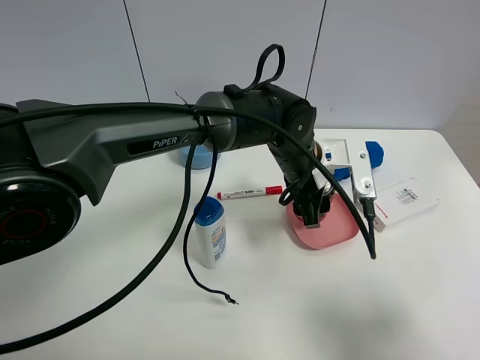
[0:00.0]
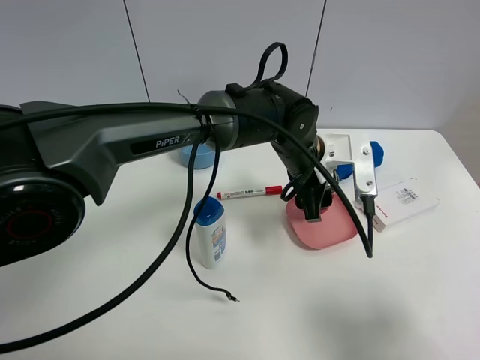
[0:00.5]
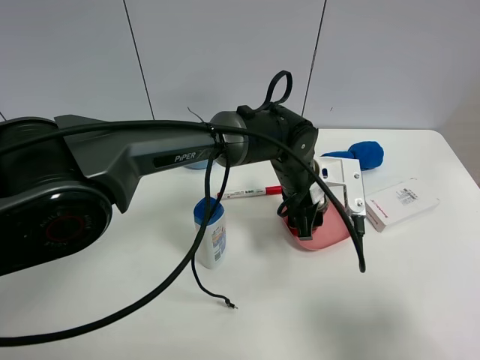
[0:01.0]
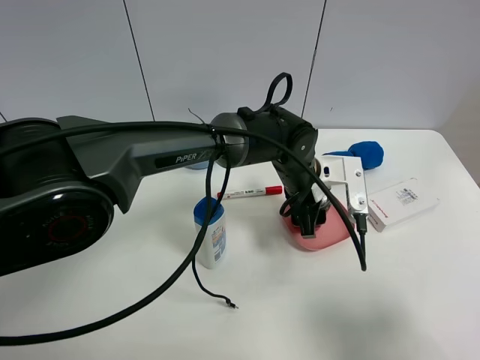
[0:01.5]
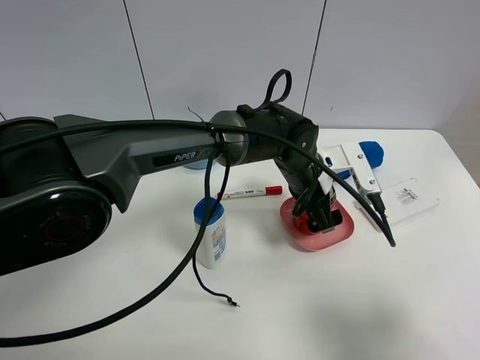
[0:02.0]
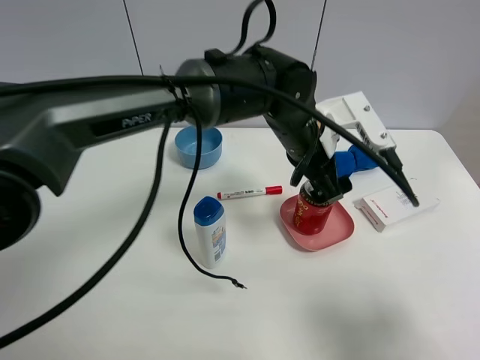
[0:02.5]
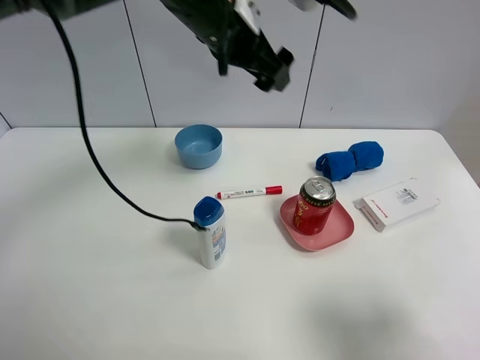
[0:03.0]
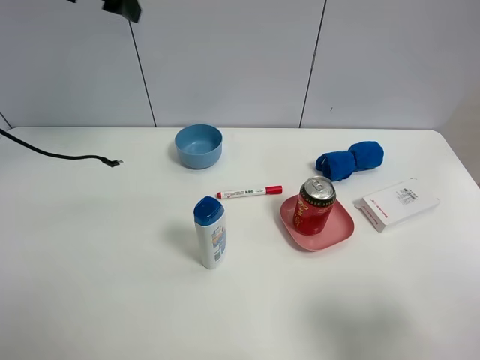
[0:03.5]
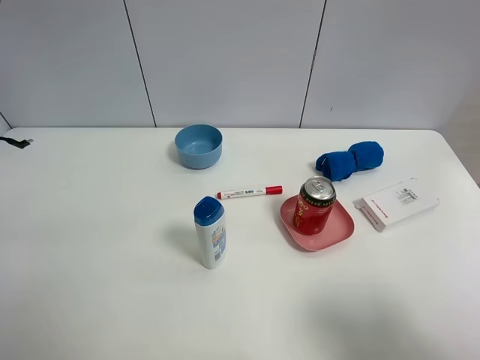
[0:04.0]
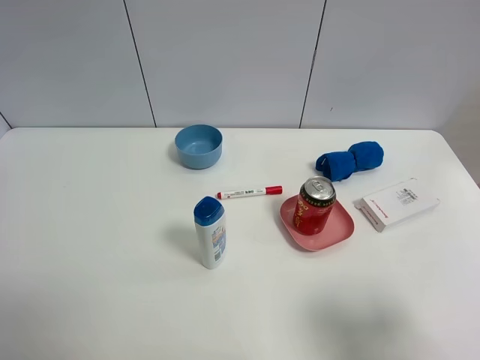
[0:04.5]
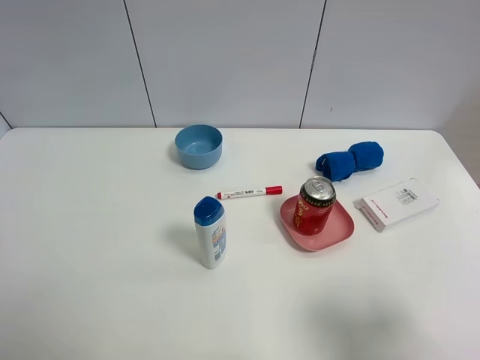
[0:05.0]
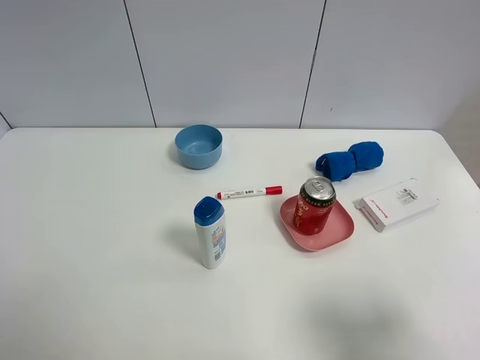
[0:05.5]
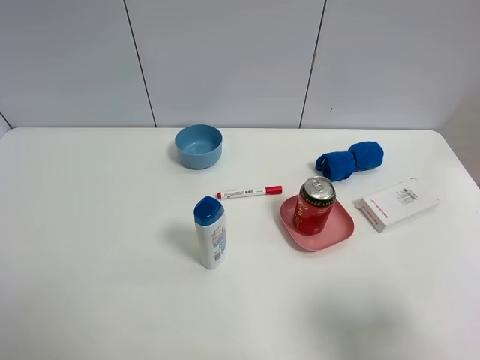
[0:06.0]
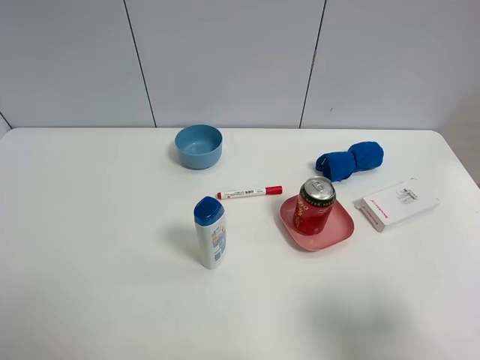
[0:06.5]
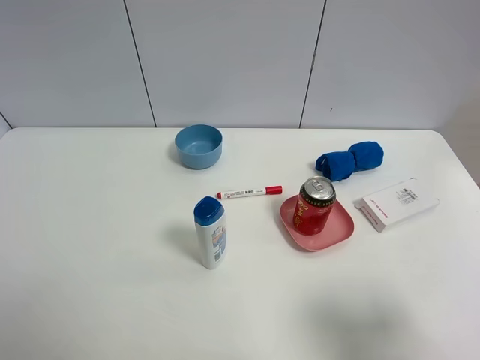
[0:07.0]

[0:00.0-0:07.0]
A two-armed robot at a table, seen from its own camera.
Task of the whole recording: the gripper move the object.
Step, 0:00.0 to 0:02.0: Place the Jia Duo Bao into the pink plate with the left gripper.
0:00.0 to 0:02.0: The left gripper opens up.
0:02.0 to 0:03.5: The left gripper is displaced to the left and upward by some 40 cm.
0:03.5 to 0:05.0: The left gripper goes about 30 cm backward.

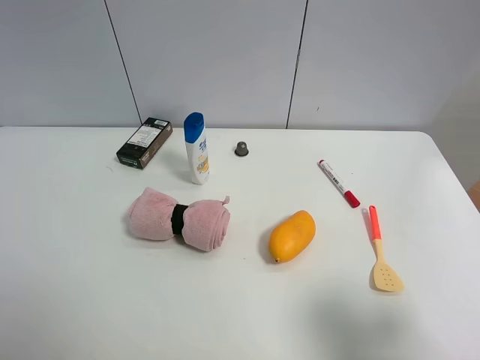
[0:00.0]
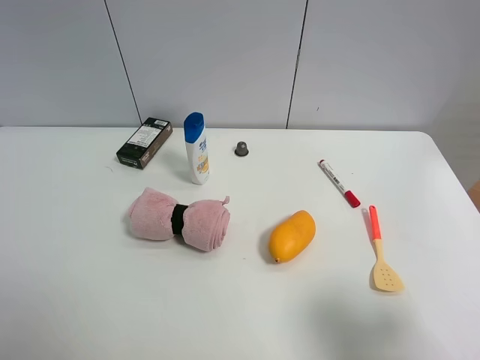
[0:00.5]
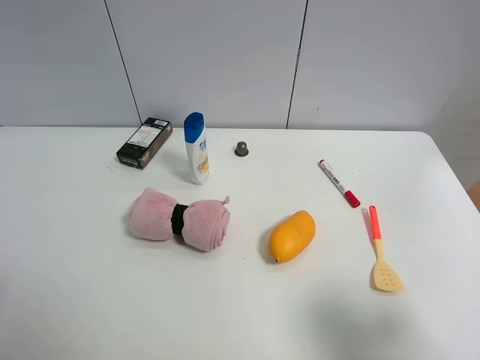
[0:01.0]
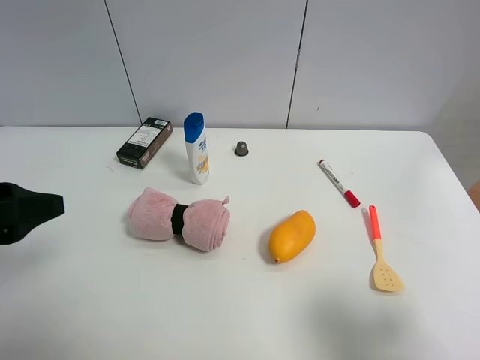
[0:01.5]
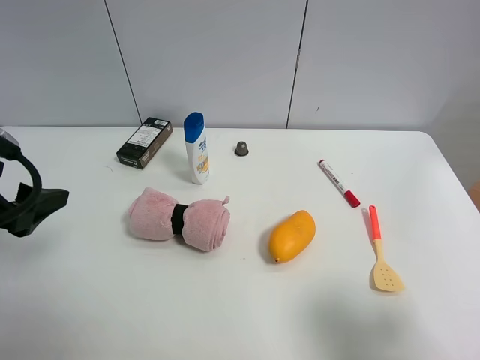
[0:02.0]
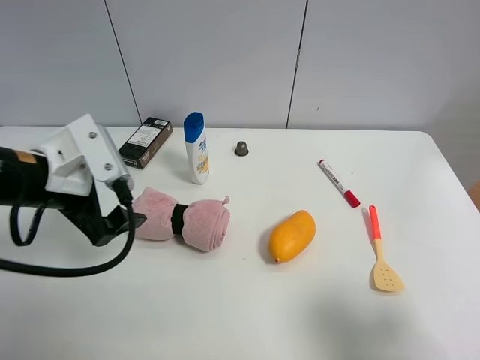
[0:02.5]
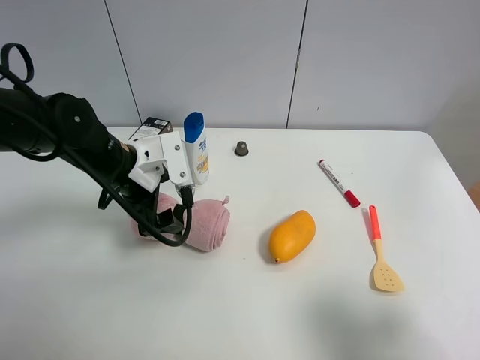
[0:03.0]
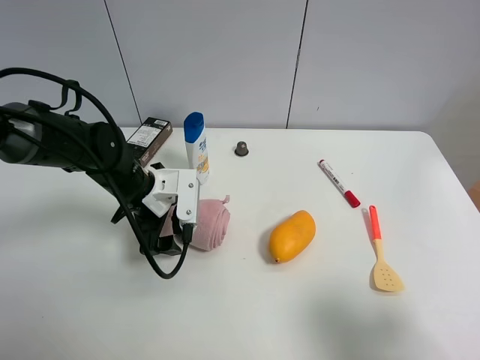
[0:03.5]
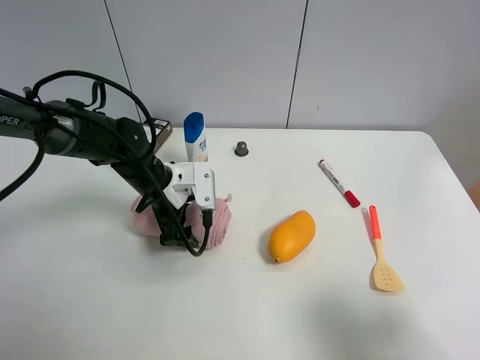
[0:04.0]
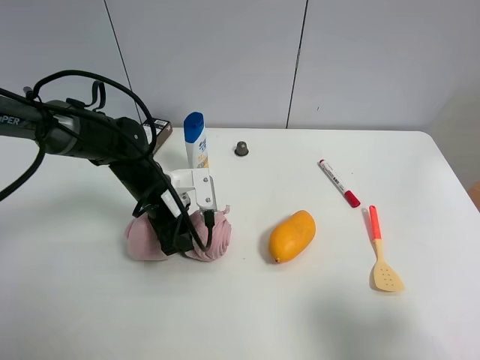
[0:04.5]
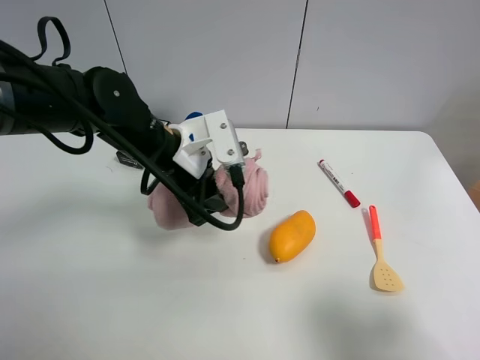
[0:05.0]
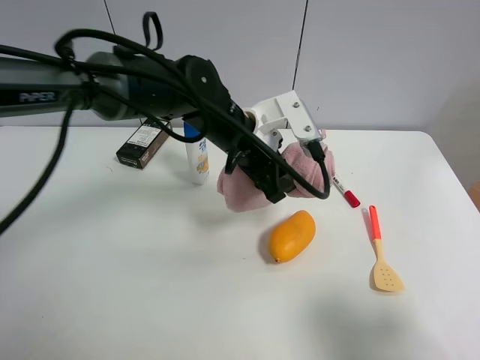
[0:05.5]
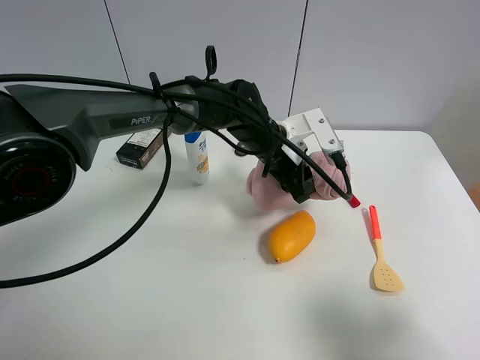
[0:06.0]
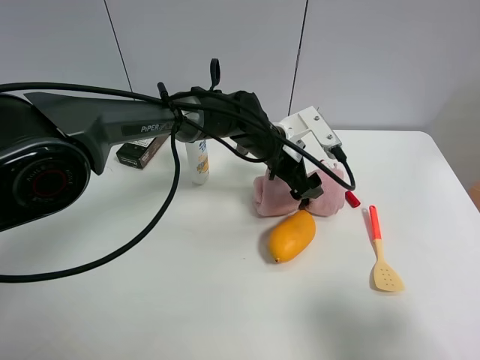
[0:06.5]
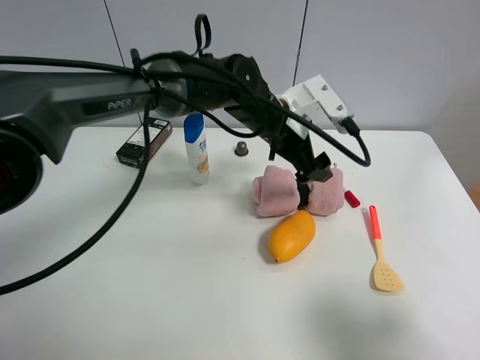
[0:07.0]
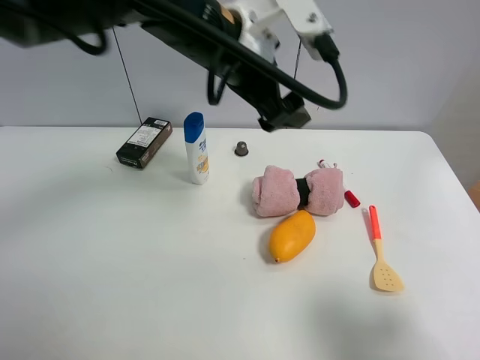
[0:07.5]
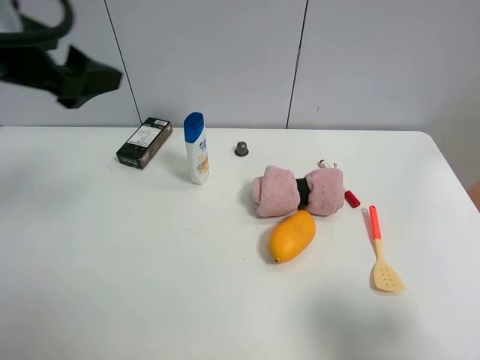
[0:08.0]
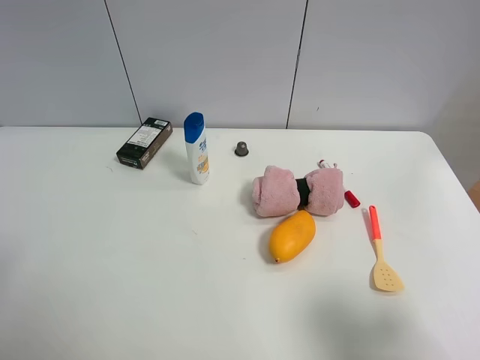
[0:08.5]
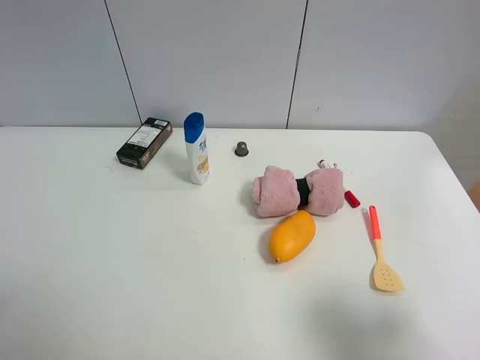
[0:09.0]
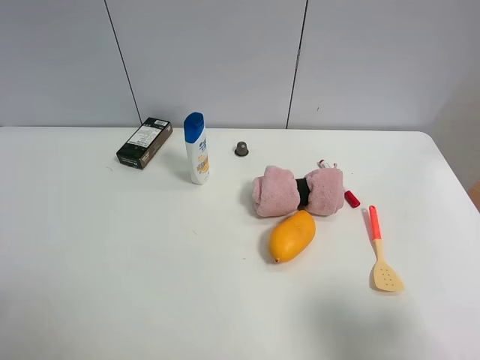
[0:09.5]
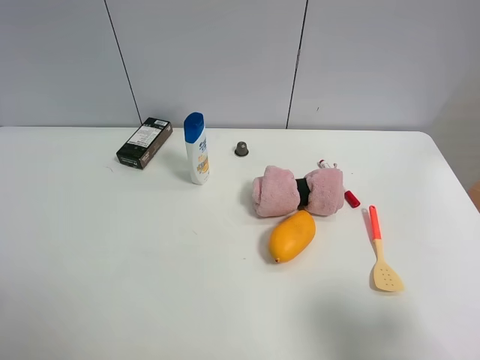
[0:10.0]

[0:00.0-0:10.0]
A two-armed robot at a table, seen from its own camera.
Task of the whole recording: the gripper move the object.
Step, 0:00.0 to 0:04.0: Grasp the pink towel with the left gripper.
Step, 0:04.5 to 0:06.0: Place the pink towel on the table with the left gripper.
0:00.0 to 0:02.0: The left gripper heads forward, covering approximately 15 cm.
0:02.0 to 0:04.0: The left gripper shifts roughly 30 cm to the right, downward and forward.
0:04.0 to 0:06.0: The left gripper moves to the right, some 20 cm, and closes up.
0:06.0 to 0:08.0: The left gripper is displaced to the left, upward and backward by some 40 cm, and opens up.
0:08.0 to 0:10.0: The left gripper is displaced backward and downward by some 25 cm.

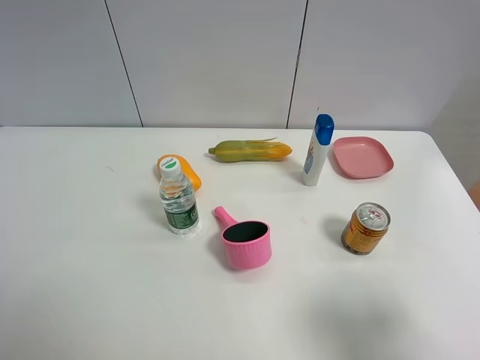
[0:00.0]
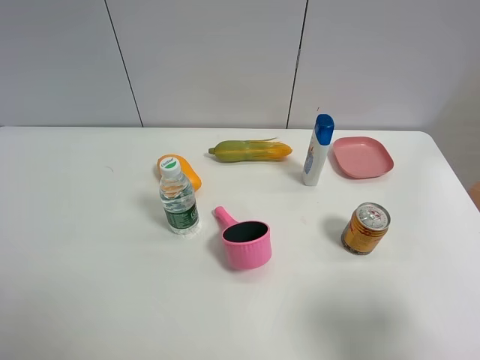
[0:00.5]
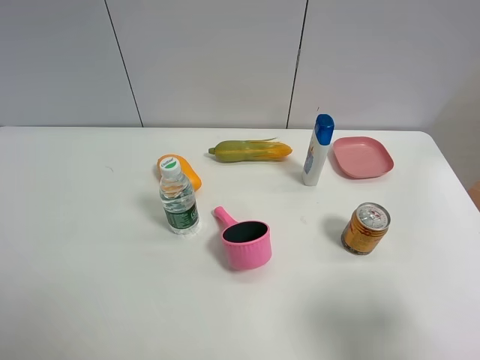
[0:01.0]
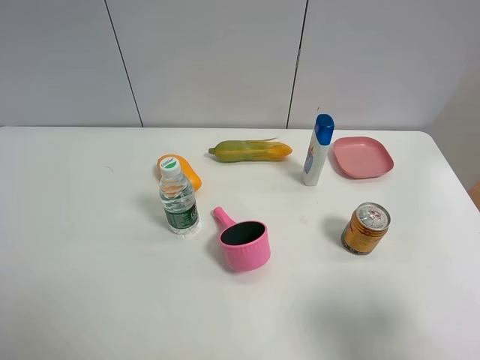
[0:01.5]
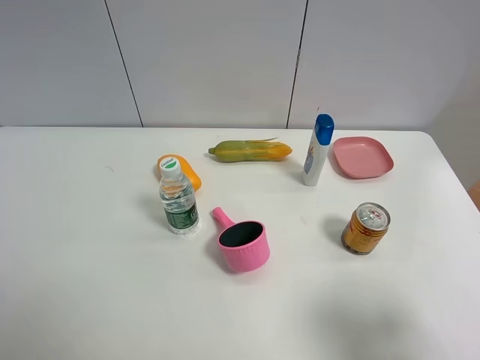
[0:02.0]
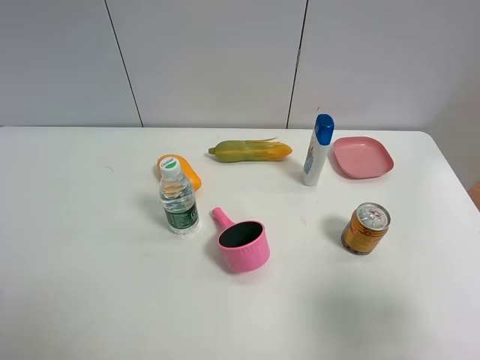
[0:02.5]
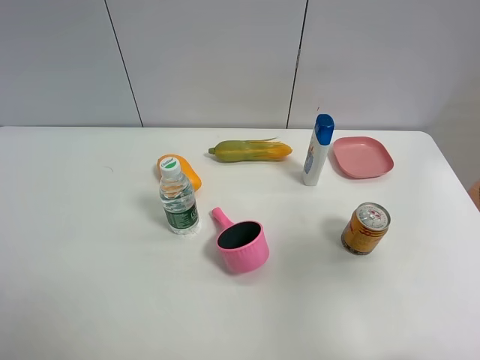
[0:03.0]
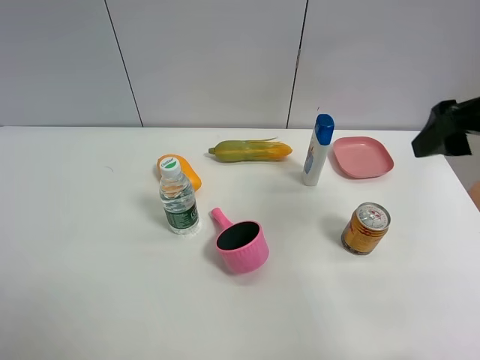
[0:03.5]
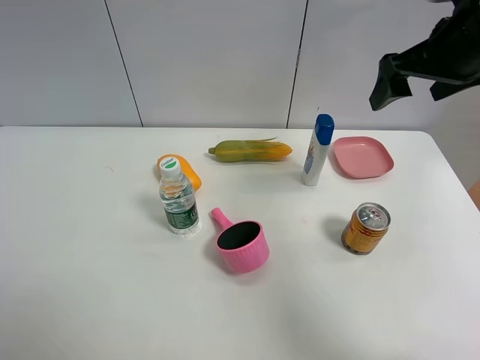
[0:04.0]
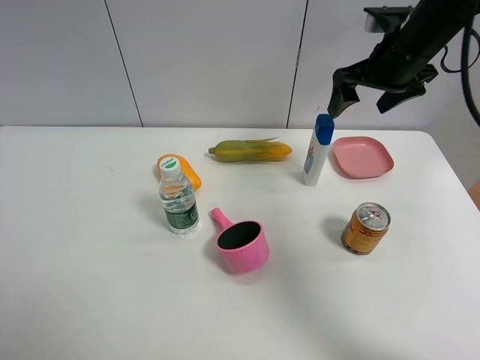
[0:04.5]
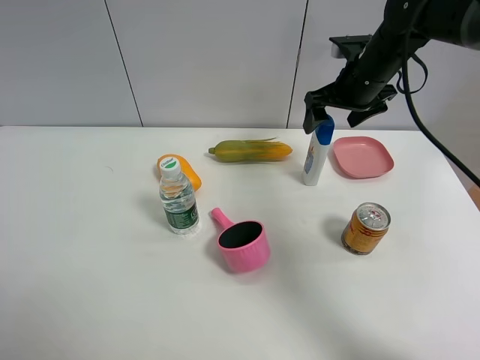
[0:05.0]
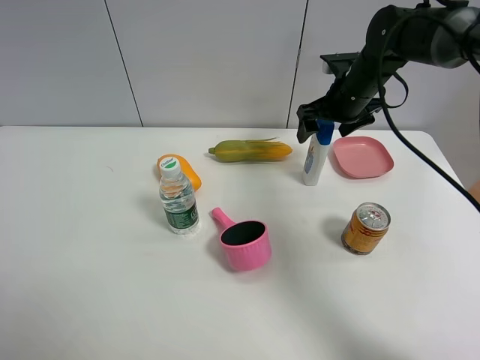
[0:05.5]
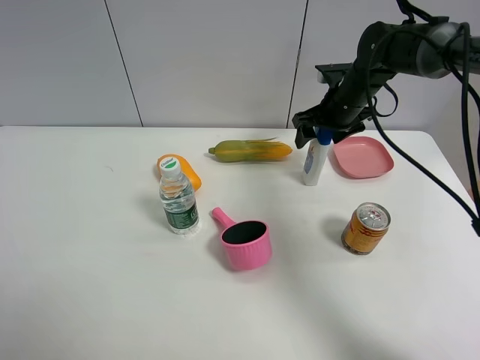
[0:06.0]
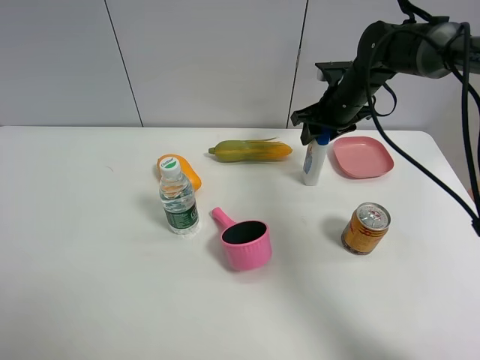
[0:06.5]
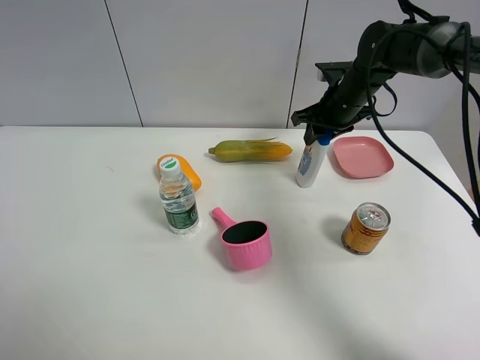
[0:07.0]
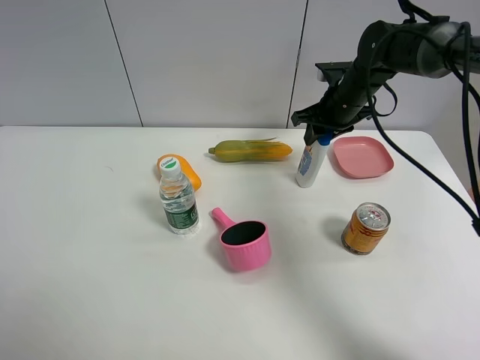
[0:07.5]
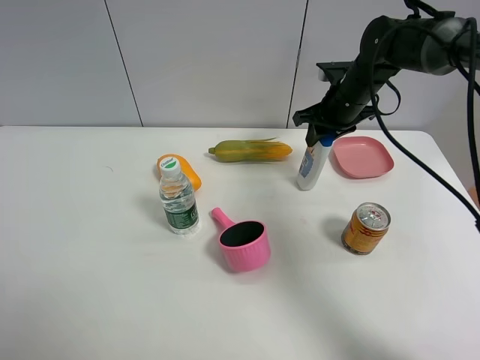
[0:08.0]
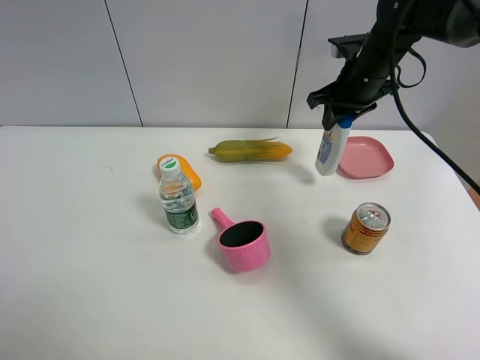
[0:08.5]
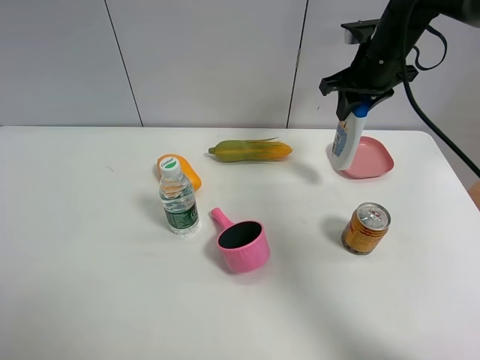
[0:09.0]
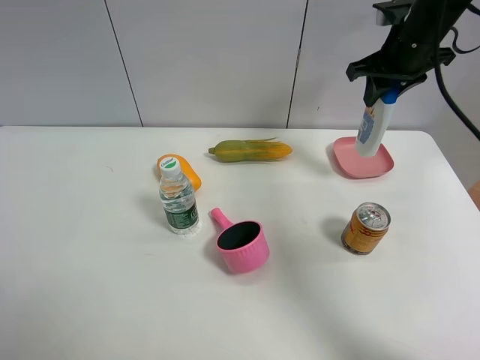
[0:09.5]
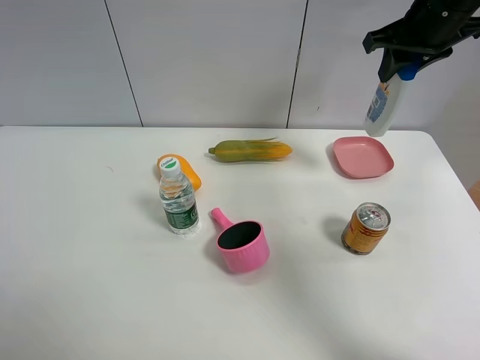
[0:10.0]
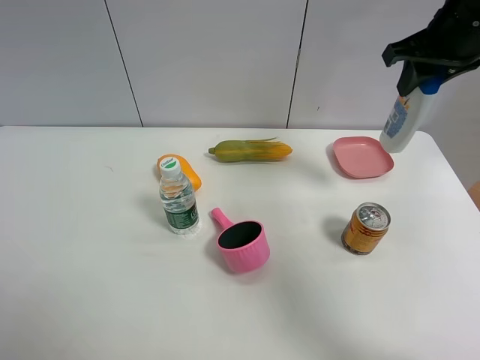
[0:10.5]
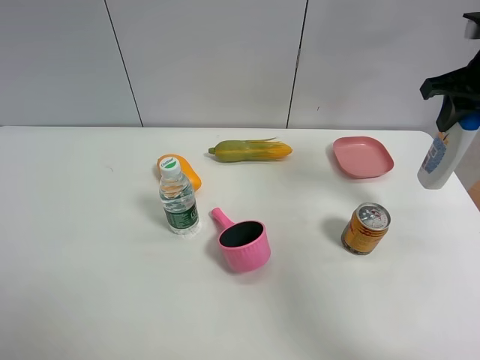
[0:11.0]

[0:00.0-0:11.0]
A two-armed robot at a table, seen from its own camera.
Task of the whole recording: the gripper move the object.
Step, 0:00.0 to 0:06.5: Grasp the shampoo with the right gripper.
0:02.0 to 0:03.5: The right gripper heads forward, covering about 20 cm.
0:03.5 to 0:05.5: The right gripper moves forward and downward, some 25 cm.
0:05.5 to 0:07.5: The right gripper closes its fingers.
0:07.5 to 0:09.0: The right gripper goes approximately 10 cm upward.
0:09.0 to 0:11.0: The right gripper shifts roughly 15 cm to the right and backward.
